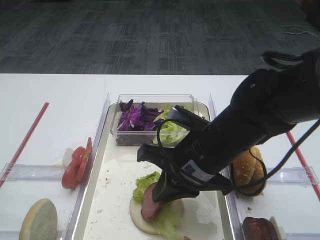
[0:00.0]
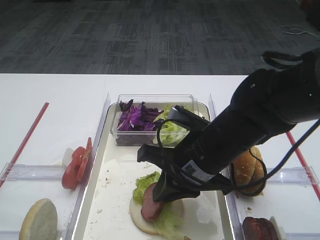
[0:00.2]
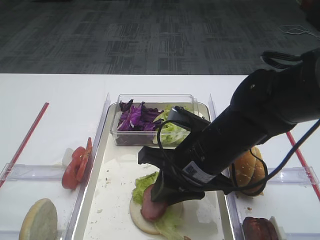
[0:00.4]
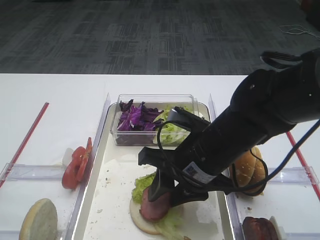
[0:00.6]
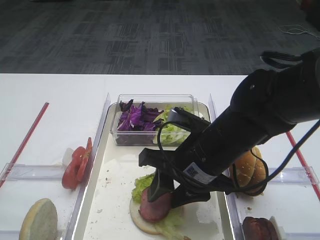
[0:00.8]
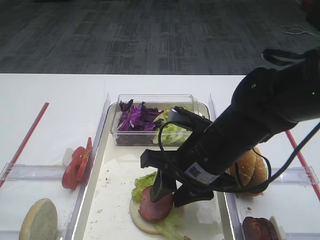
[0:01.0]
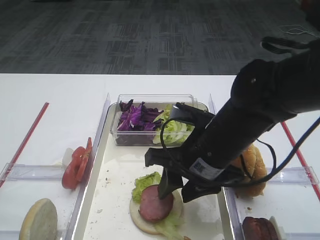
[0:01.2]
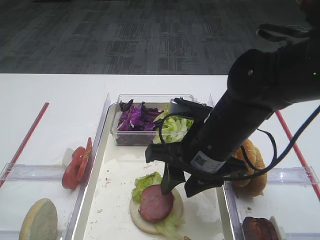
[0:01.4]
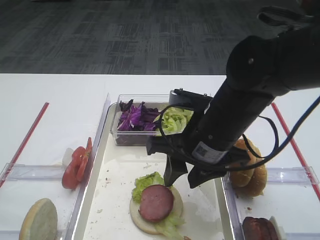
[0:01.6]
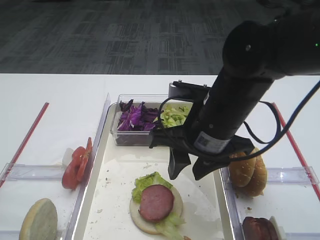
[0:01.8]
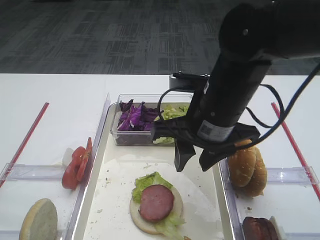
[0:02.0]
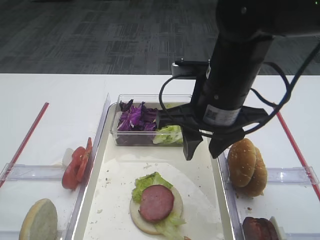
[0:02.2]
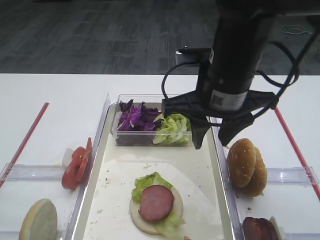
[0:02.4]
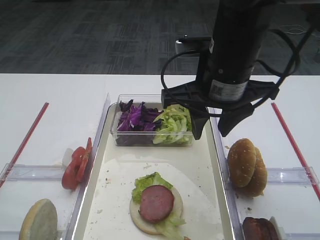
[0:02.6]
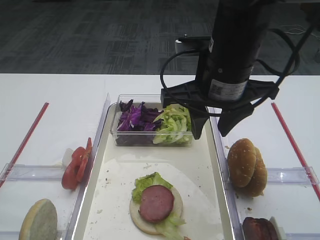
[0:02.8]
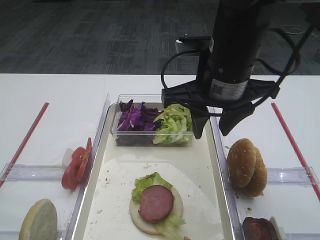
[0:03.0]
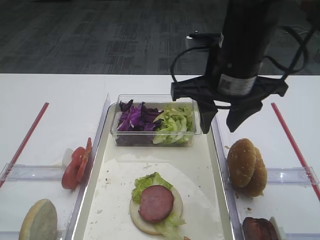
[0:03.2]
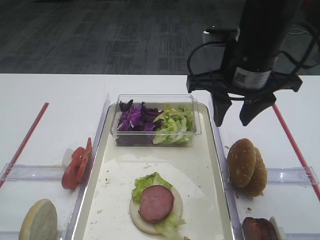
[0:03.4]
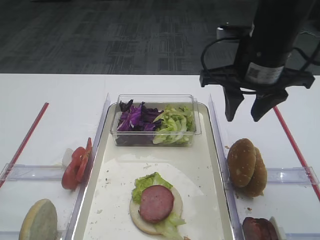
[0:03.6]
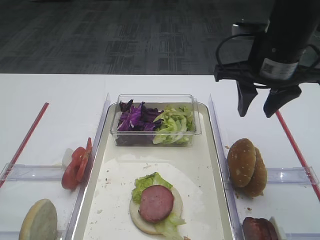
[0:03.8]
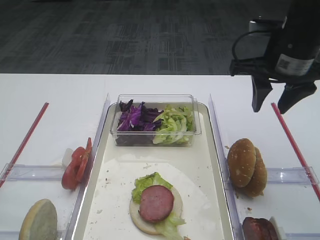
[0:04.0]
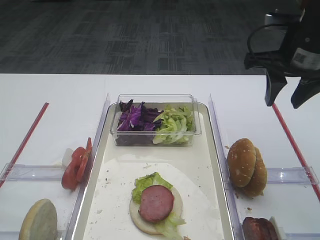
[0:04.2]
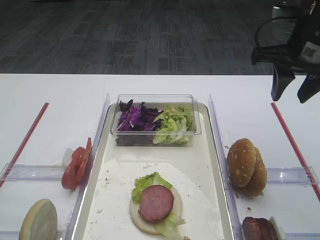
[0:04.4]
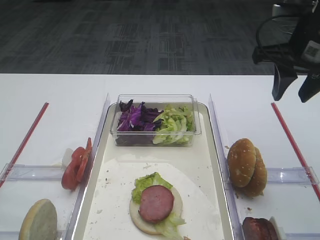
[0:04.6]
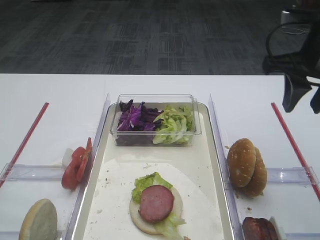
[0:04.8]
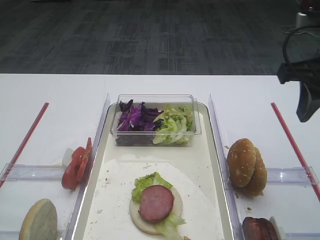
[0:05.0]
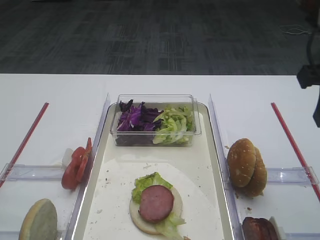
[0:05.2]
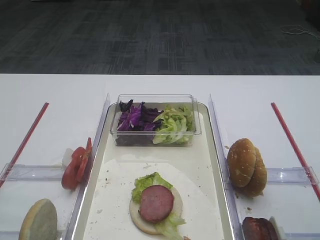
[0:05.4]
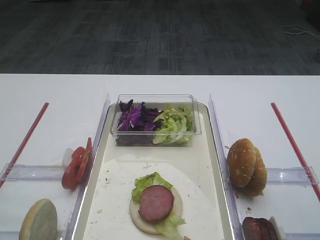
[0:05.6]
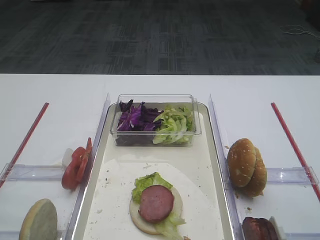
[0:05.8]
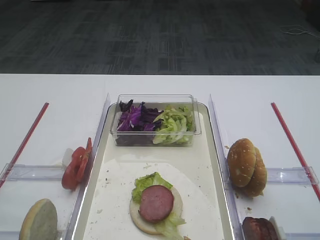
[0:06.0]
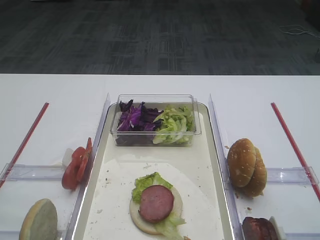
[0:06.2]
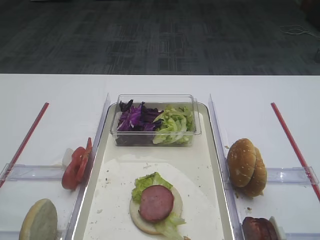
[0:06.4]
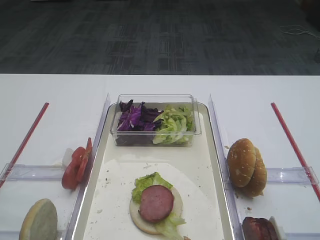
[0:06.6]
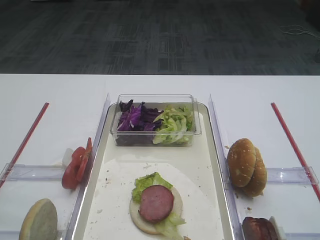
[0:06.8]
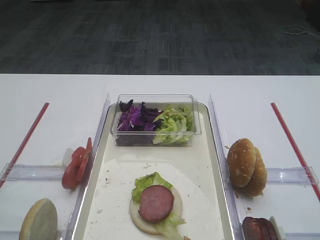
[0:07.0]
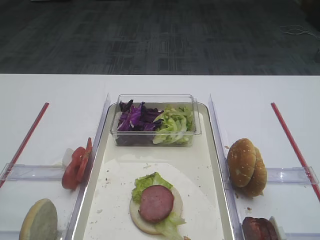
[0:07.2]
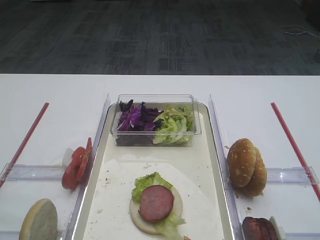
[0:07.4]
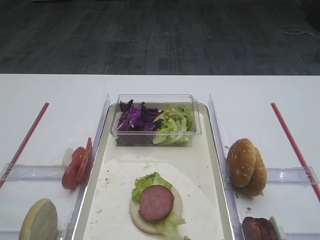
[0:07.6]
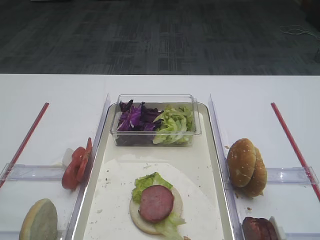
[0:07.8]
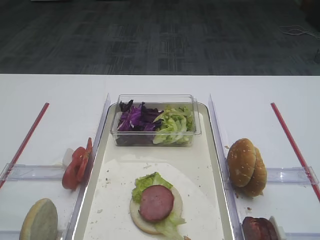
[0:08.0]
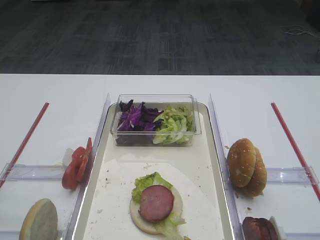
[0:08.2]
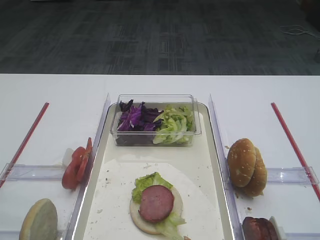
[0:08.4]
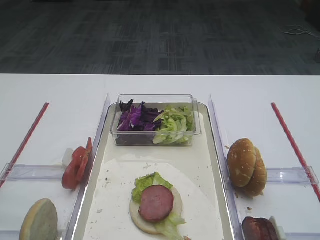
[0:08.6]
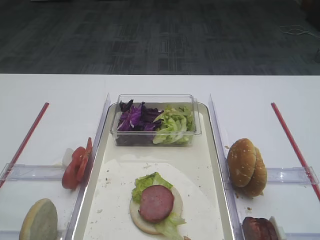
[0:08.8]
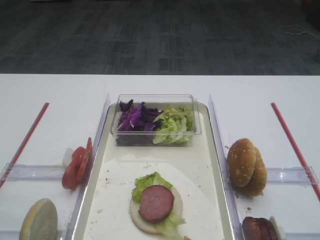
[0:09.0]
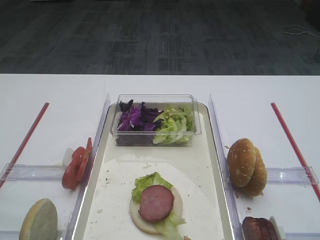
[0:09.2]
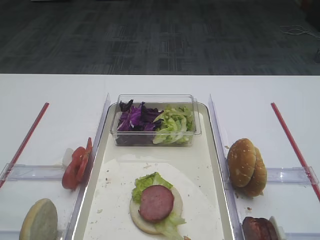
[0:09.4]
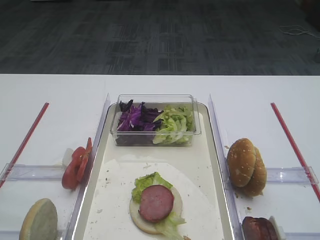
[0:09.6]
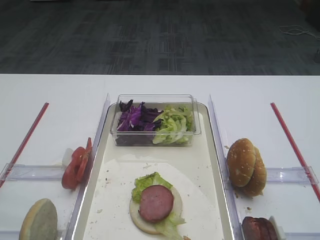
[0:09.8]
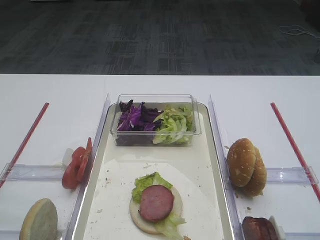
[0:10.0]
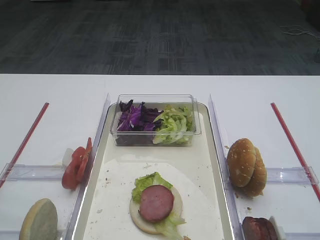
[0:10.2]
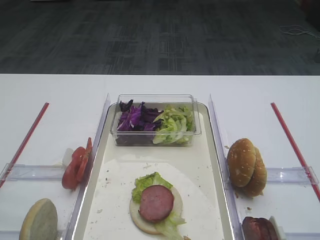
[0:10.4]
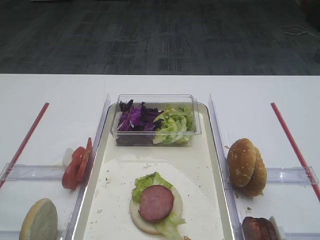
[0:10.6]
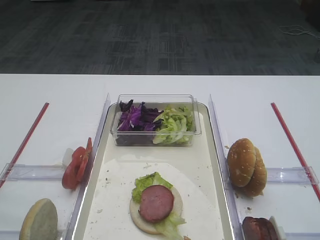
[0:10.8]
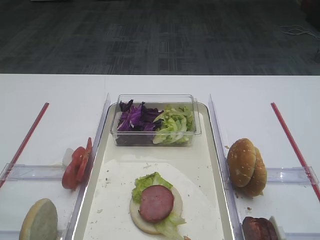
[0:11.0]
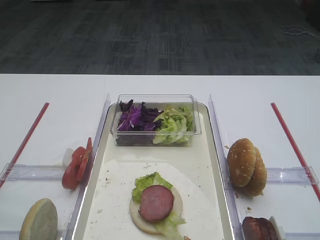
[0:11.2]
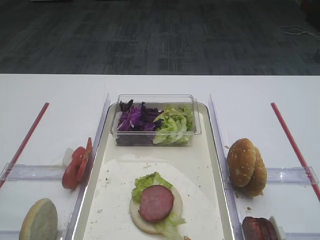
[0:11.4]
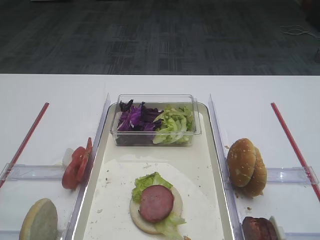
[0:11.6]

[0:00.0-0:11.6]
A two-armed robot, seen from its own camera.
0:00.0 to 0:01.4: The right gripper opens its fingers.
0:01.4 to 0:02.8: The right gripper moves upward, about 10 cm.
0:02.8 to 0:04.4: The right gripper travels to the right by approximately 15 cm.
0:04.4 to 0:05.8: The right gripper shifts roughly 20 cm backward.
0:10.2 to 0:11.6: The two grippers keep their place.

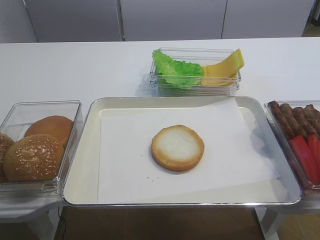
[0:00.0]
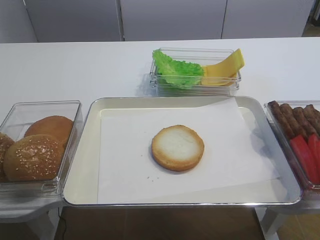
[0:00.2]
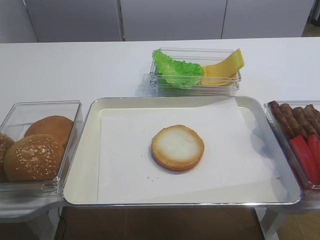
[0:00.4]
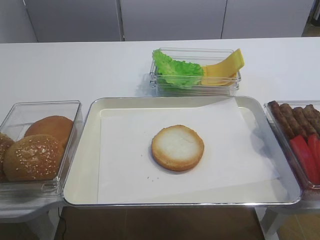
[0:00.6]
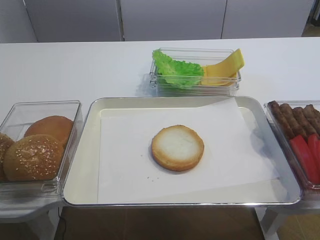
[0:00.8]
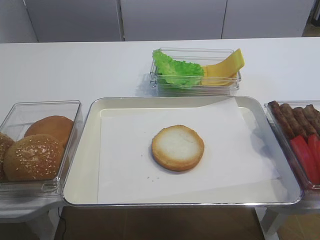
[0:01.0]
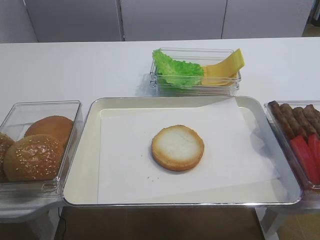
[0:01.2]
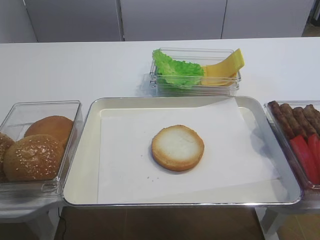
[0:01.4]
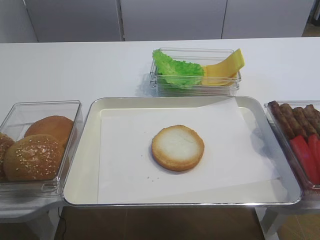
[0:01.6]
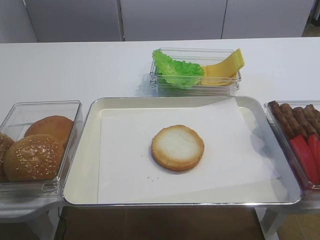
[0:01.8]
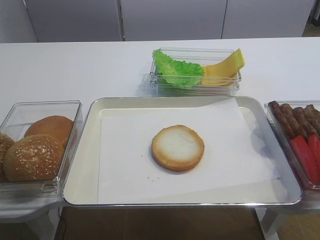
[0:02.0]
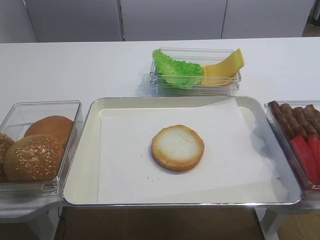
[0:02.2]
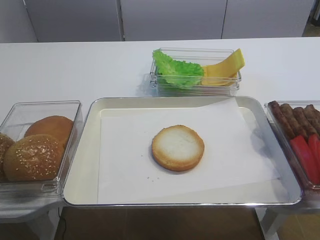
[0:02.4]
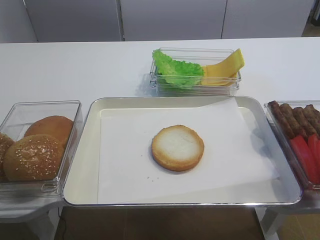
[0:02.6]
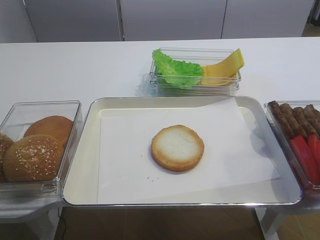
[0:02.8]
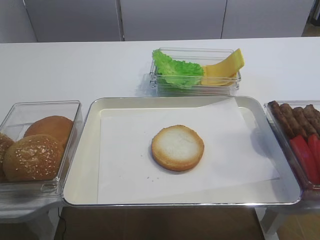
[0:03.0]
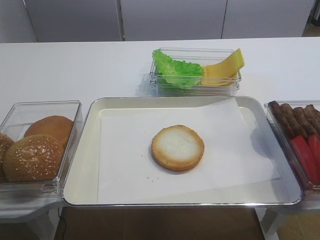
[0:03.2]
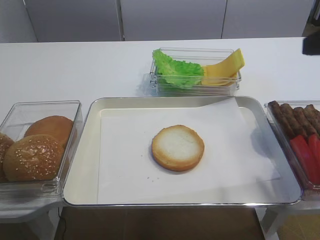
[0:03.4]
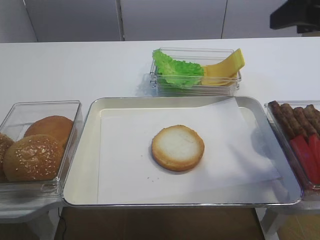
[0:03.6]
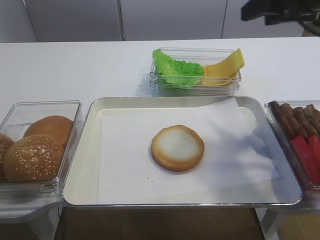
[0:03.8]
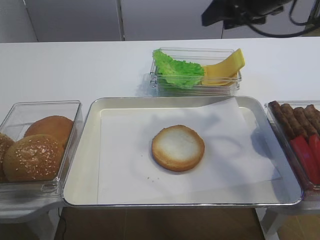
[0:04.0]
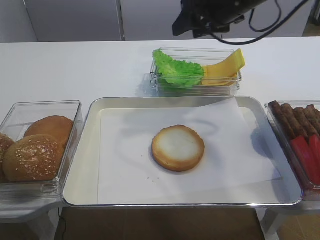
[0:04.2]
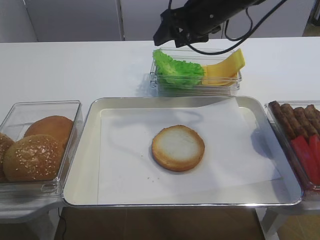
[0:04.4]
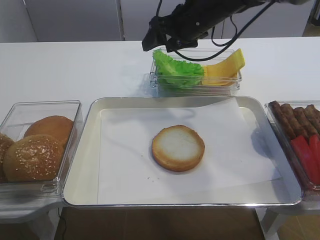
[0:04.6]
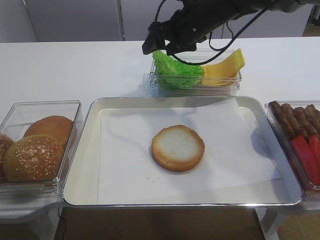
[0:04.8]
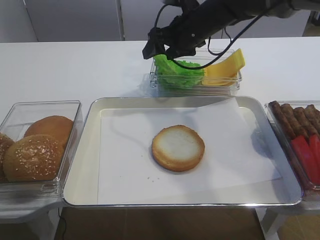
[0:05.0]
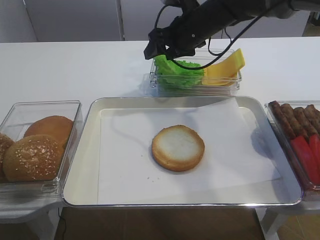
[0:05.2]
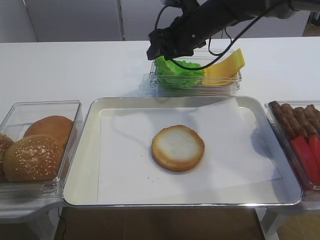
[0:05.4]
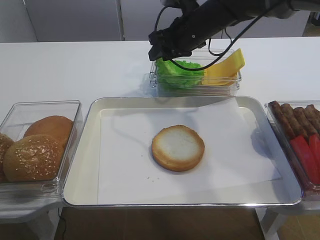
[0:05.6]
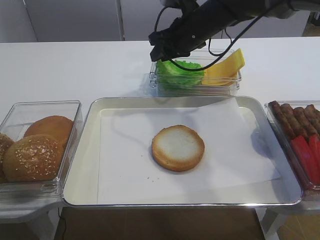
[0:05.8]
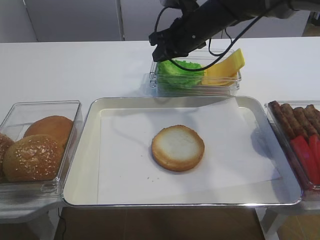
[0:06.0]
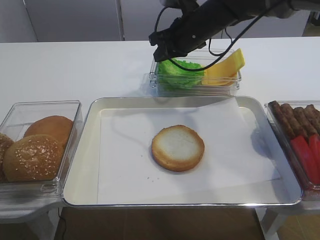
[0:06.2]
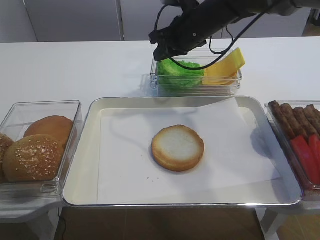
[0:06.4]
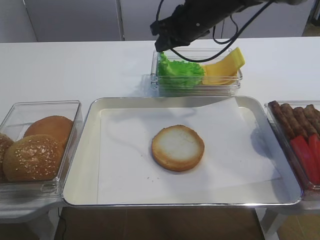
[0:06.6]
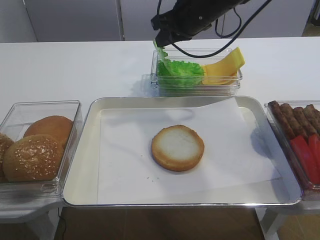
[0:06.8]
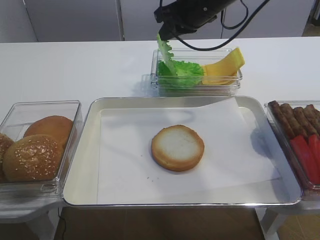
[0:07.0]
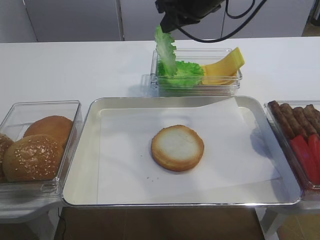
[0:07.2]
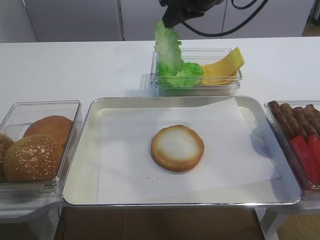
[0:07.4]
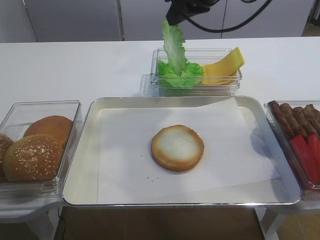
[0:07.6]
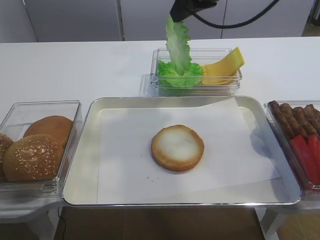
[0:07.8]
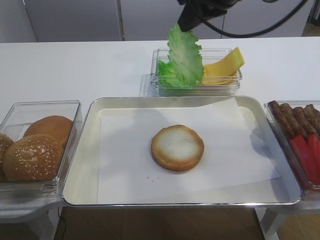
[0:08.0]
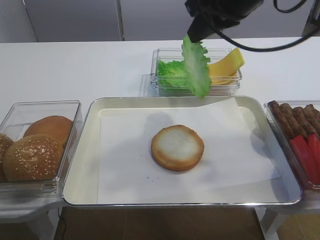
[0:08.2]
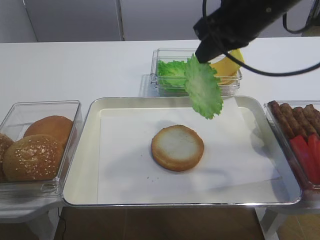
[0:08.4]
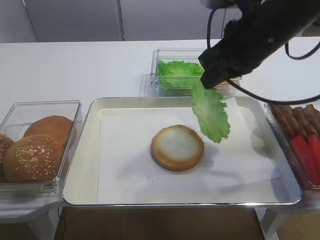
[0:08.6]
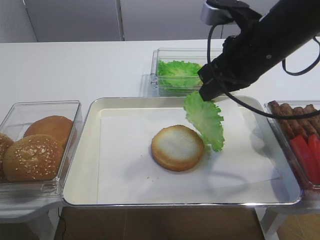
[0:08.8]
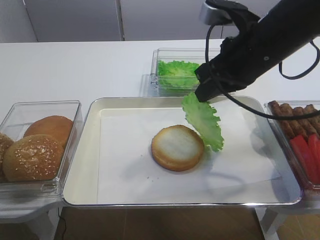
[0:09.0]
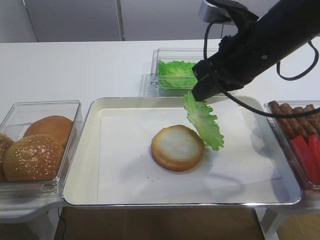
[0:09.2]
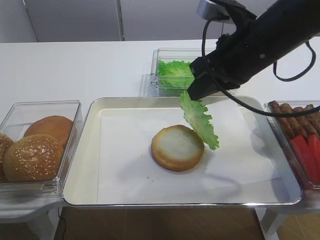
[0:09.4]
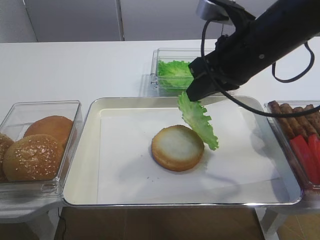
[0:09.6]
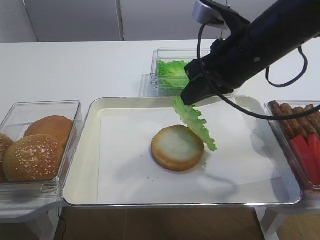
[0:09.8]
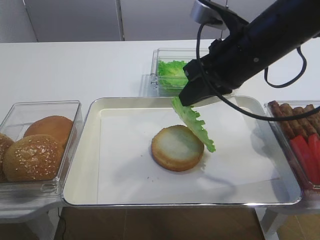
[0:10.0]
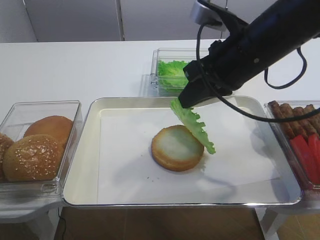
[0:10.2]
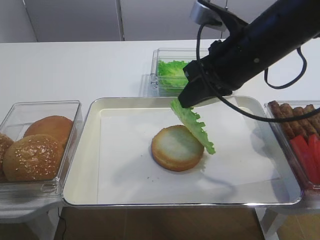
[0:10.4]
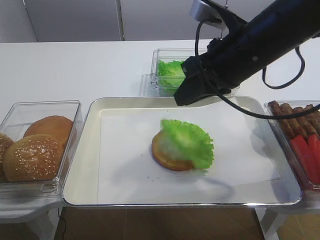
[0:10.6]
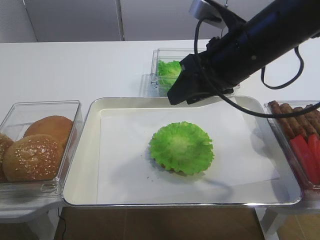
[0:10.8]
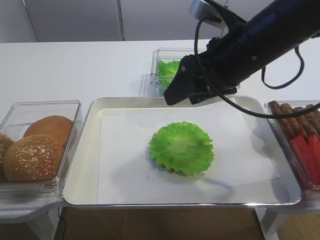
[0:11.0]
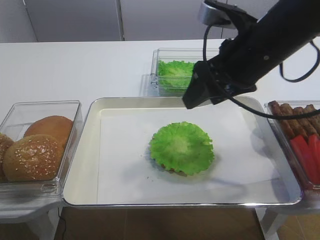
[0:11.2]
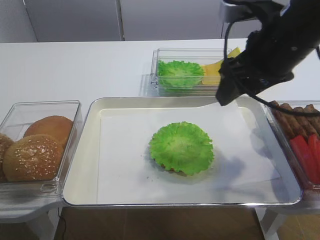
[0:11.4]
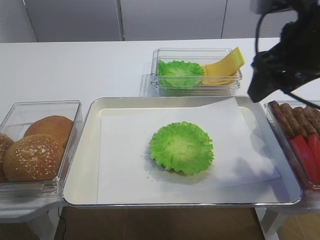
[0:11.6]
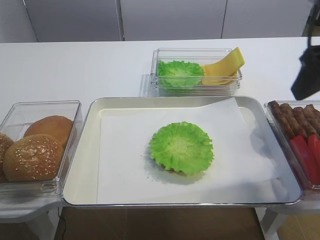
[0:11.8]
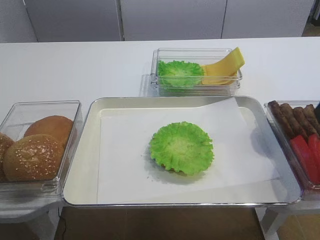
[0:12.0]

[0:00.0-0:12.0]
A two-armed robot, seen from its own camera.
Step, 0:00.0 to 0:06.8: Pick up the lettuce leaf with the right gripper.
Step, 0:07.0 to 0:10.4: Place the lettuce leaf on the bread slice with the right gripper.
0:03.0 to 0:04.4: The right gripper heads forward and to the left, covering about 40 cm.
0:04.4 to 0:06.0: The right gripper shifts by about 5 cm, and closes its fingers.
0:06.0 to 0:07.6: The right gripper shifts approximately 10 cm upward and backward.
0:07.6 to 0:09.0: The right gripper shifts roughly 15 cm backward and downward.
0:09.0 to 0:10.4: The grippers move only a little.
0:10.4 to 0:12.0: The right gripper heads to the right and backward, covering some 15 cm, and opens.
